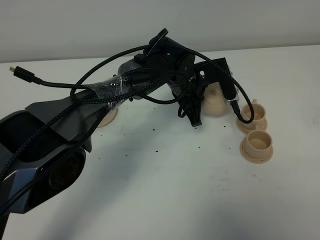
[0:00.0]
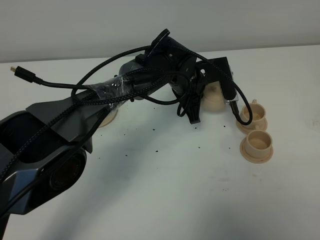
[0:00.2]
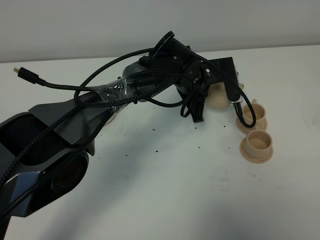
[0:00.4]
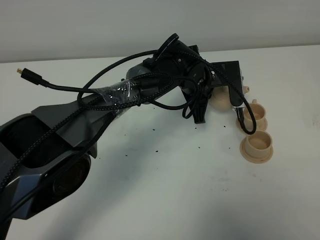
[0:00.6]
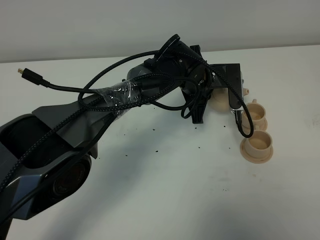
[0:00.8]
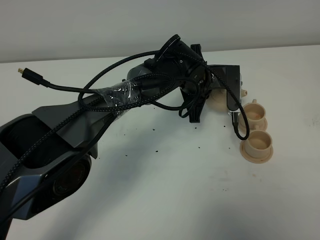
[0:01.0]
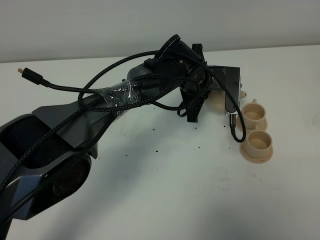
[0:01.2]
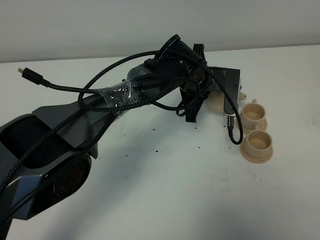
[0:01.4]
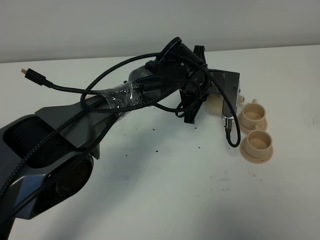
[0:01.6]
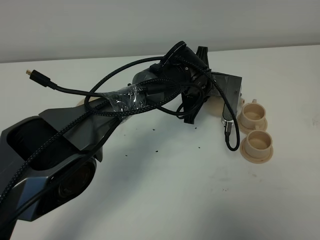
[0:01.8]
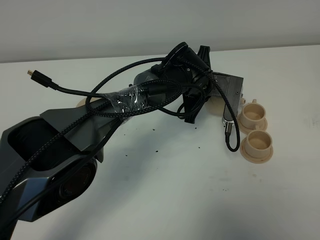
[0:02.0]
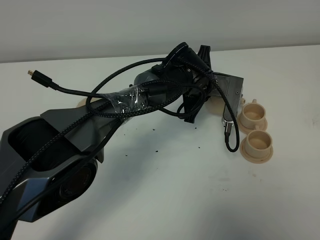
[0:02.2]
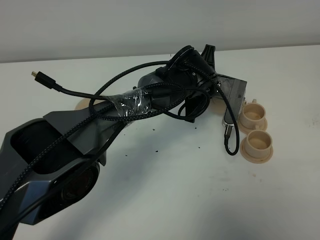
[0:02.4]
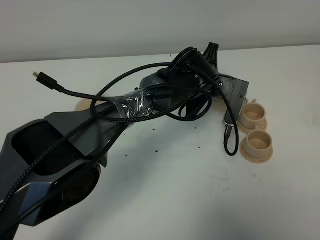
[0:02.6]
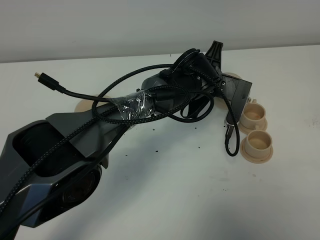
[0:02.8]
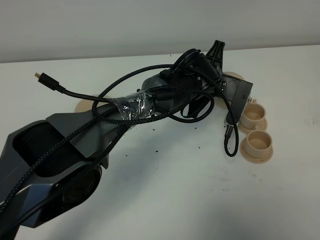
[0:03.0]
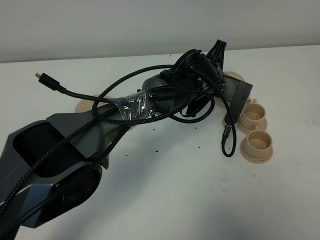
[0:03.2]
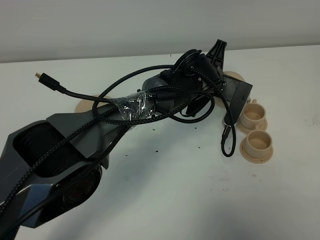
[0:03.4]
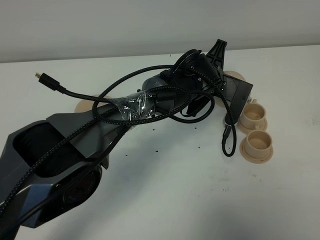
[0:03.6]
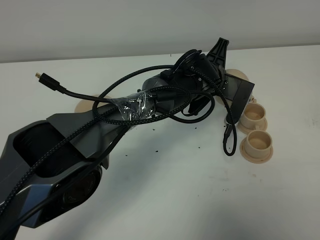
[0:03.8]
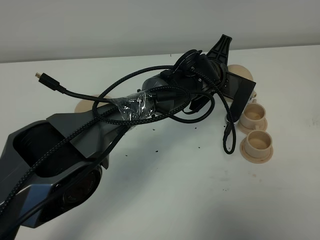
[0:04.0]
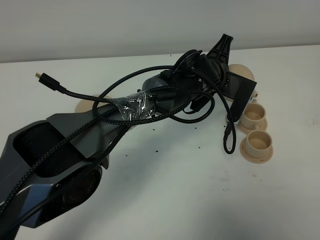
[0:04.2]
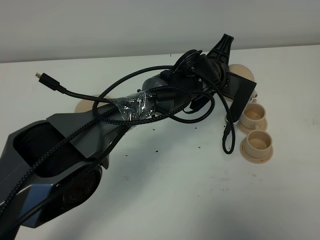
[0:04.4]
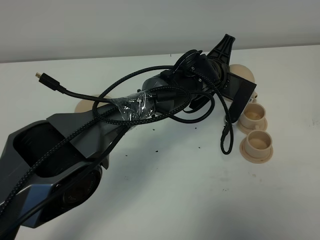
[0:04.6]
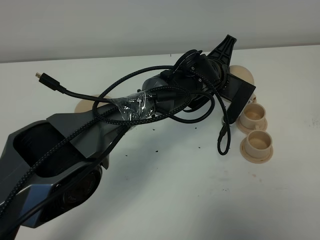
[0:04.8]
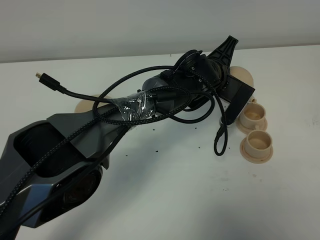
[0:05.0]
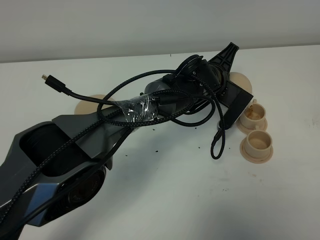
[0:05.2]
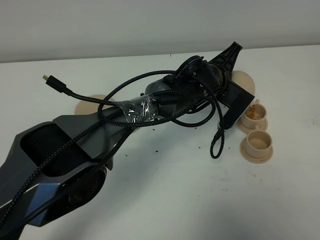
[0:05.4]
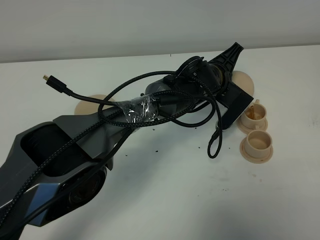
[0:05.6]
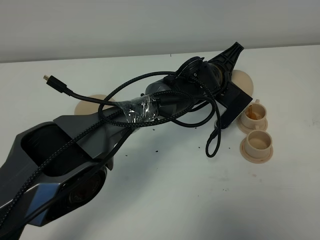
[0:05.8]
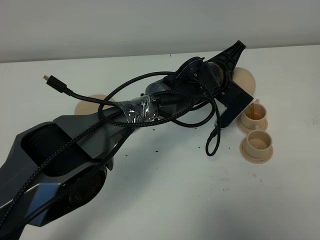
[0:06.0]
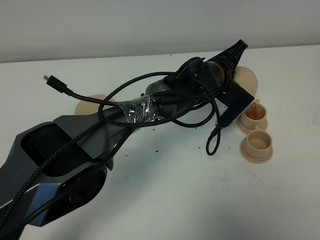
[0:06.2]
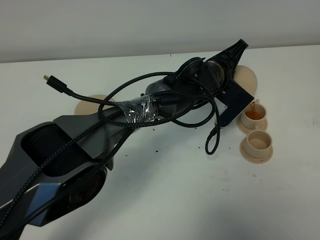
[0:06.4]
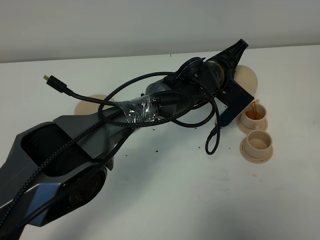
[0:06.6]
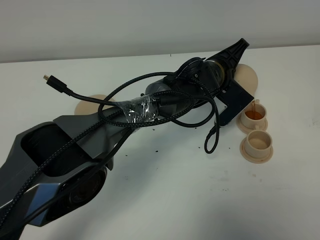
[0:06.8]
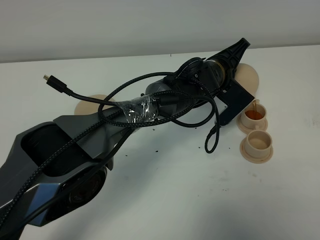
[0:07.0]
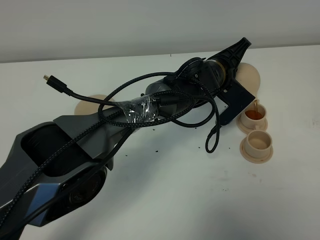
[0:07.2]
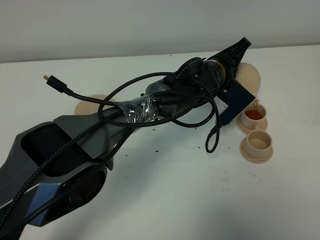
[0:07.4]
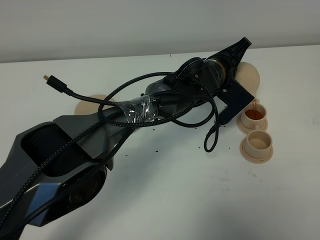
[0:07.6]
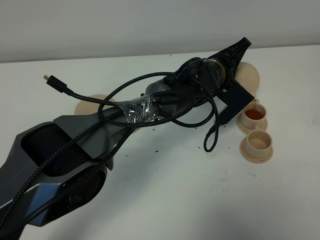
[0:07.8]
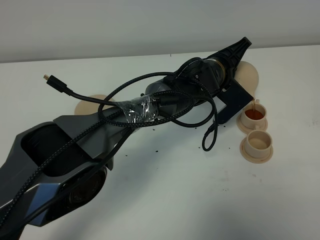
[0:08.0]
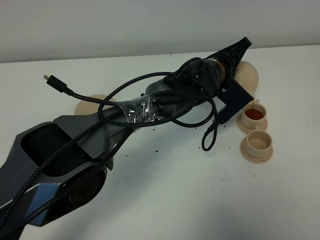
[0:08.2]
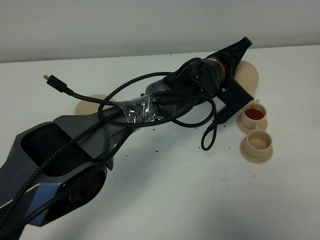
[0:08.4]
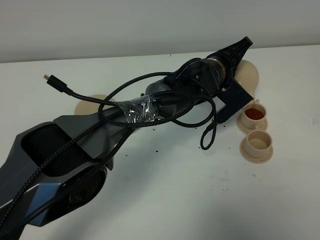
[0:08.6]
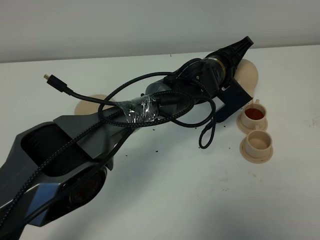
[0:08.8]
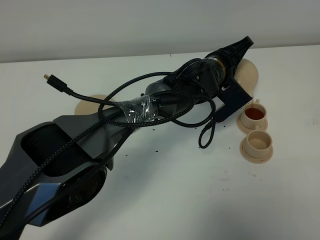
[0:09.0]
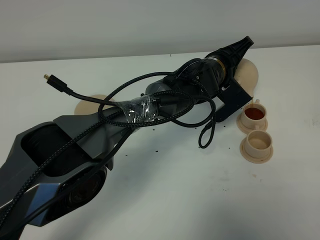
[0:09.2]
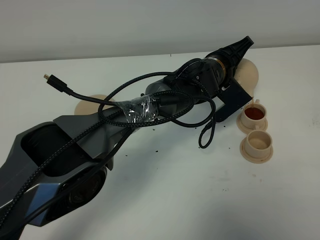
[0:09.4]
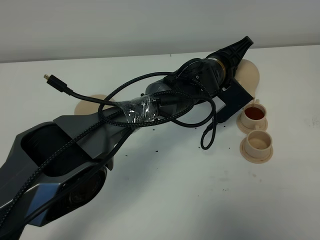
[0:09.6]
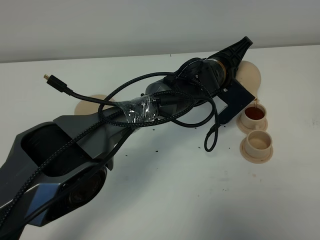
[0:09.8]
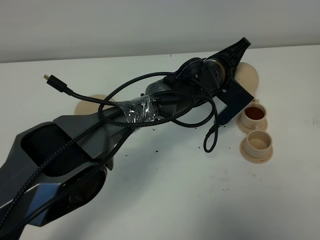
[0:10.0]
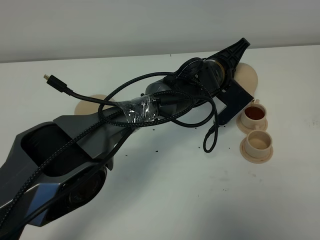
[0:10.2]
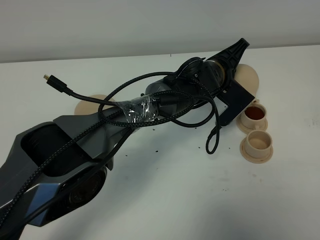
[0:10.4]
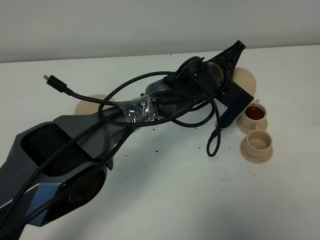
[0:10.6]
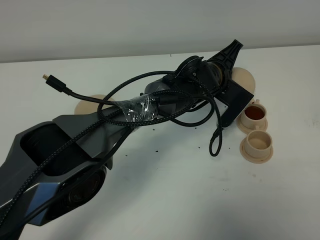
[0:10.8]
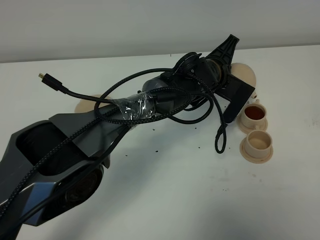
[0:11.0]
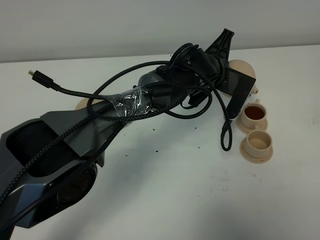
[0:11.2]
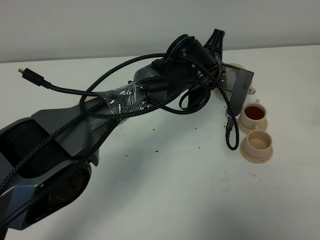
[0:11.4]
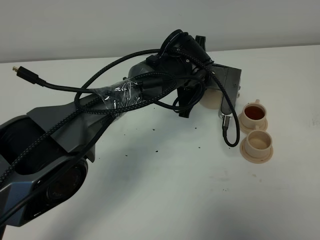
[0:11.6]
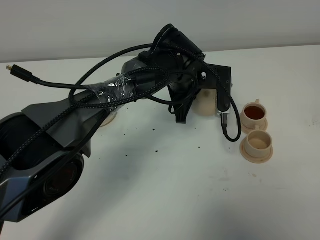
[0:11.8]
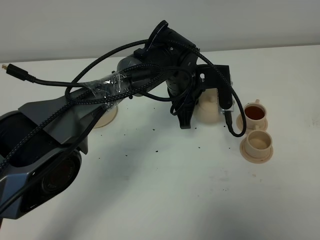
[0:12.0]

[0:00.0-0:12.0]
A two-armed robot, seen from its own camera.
Task of the whole recording: grasp the brown teapot and pour the tea into the two brown teacups one by one, put the brown teapot back in its original place.
0:01.6 to 0:03.0: The grippers make only small movements.
0:03.0 to 0:04.4: The grippers make only small movements.
0:04.4 to 0:06.0: The grippers make only small movements.
0:06.0 to 0:10.4: The grippers move only a little.
0:10.4 to 0:12.0: The left gripper moves to the left, some 5 cm.

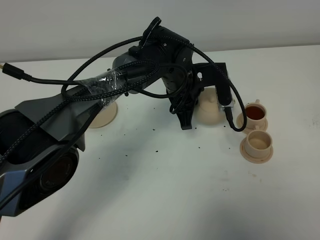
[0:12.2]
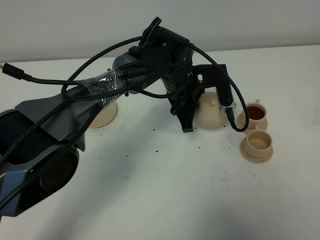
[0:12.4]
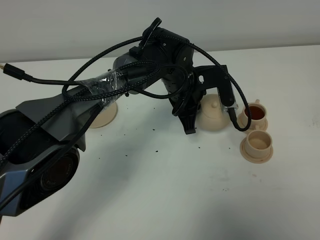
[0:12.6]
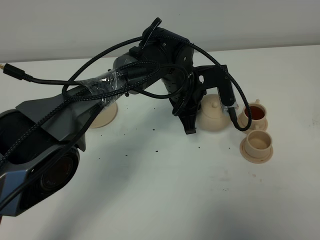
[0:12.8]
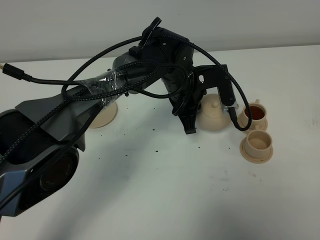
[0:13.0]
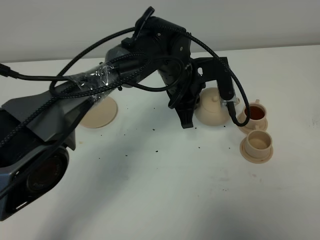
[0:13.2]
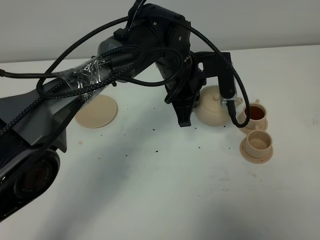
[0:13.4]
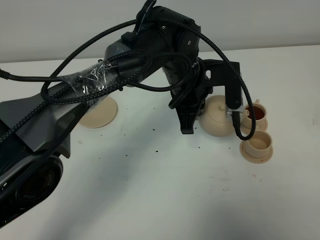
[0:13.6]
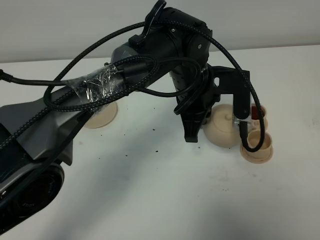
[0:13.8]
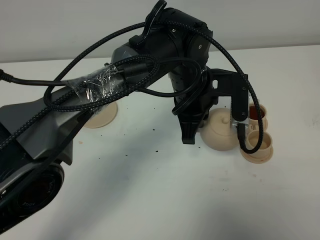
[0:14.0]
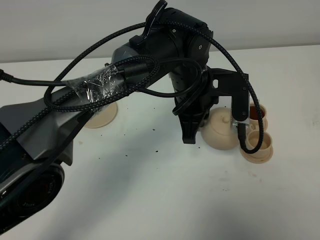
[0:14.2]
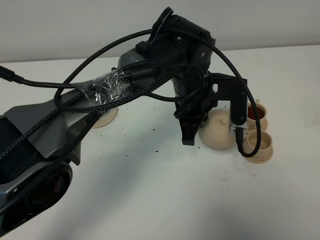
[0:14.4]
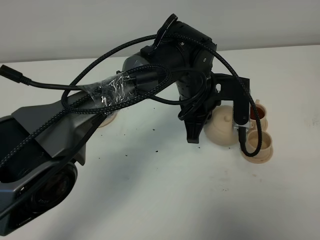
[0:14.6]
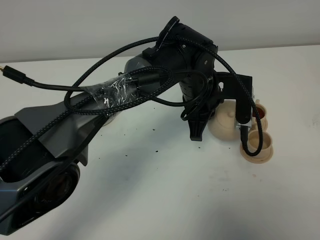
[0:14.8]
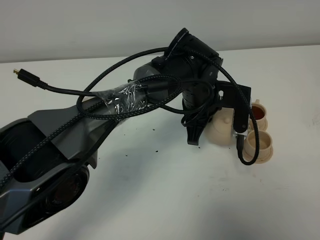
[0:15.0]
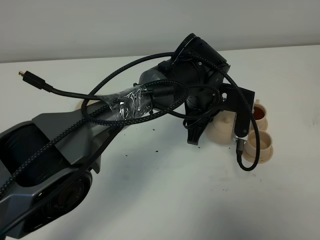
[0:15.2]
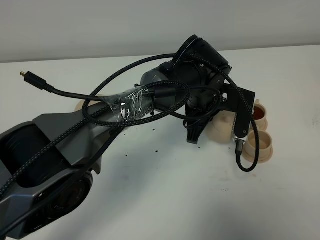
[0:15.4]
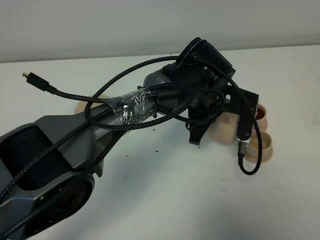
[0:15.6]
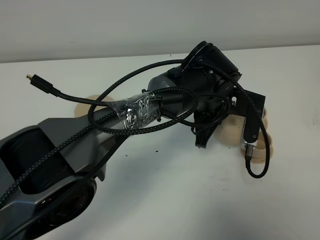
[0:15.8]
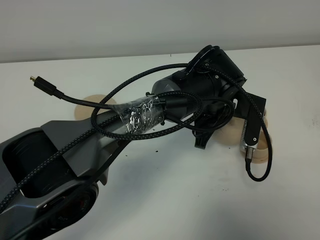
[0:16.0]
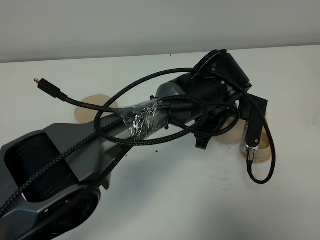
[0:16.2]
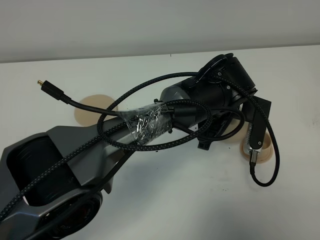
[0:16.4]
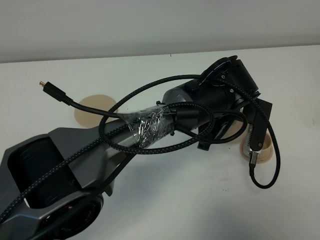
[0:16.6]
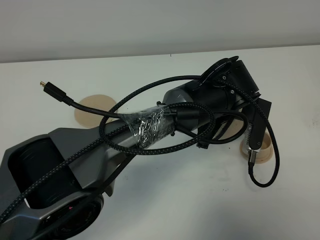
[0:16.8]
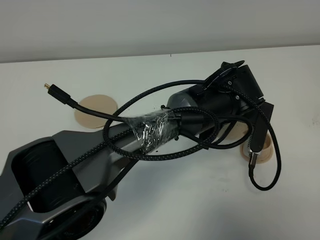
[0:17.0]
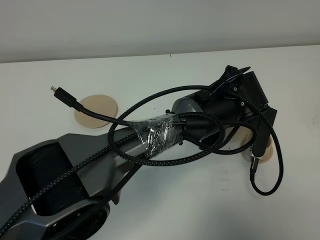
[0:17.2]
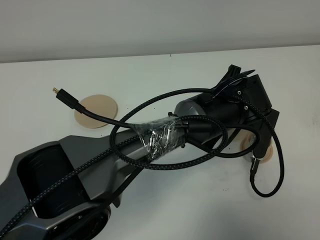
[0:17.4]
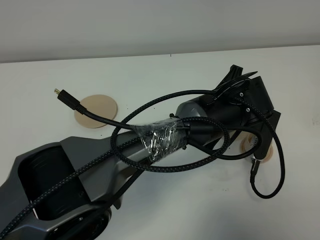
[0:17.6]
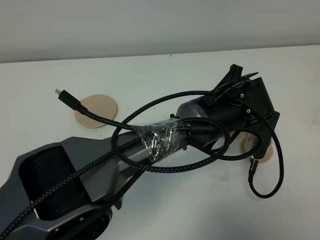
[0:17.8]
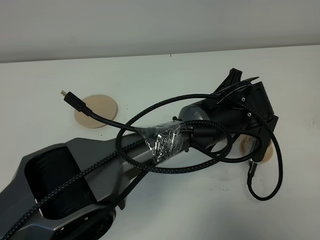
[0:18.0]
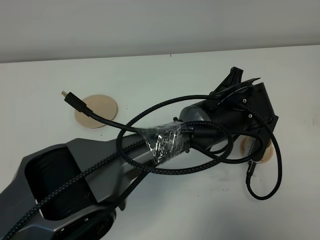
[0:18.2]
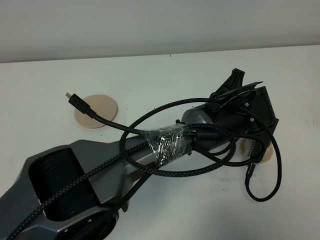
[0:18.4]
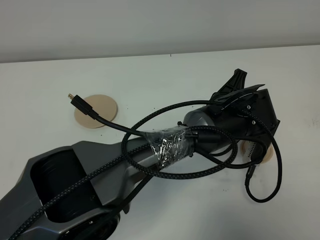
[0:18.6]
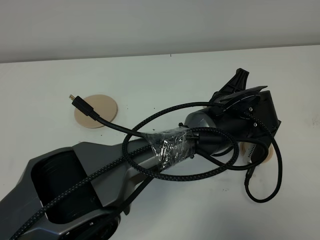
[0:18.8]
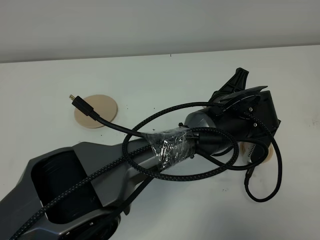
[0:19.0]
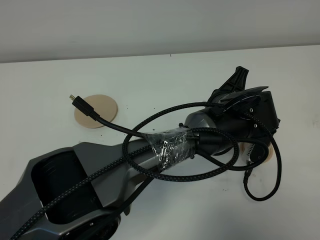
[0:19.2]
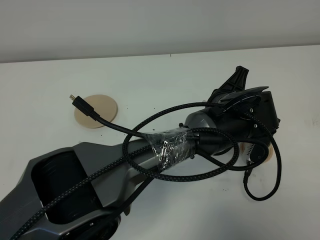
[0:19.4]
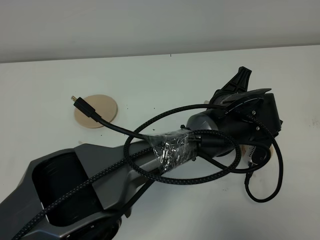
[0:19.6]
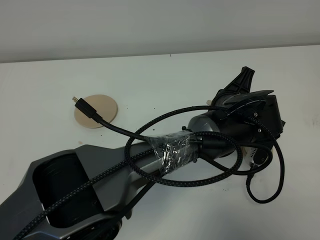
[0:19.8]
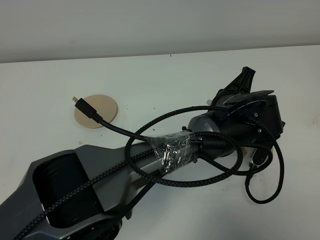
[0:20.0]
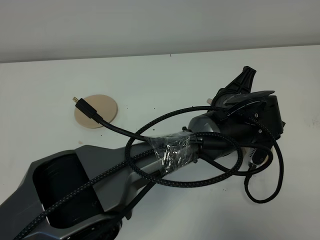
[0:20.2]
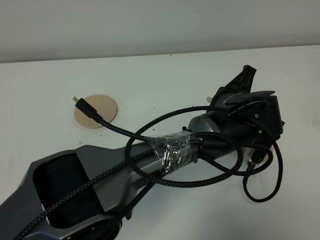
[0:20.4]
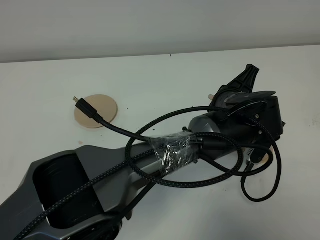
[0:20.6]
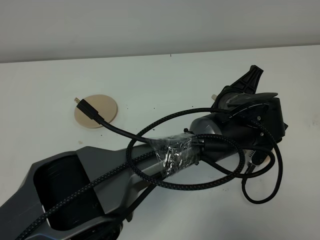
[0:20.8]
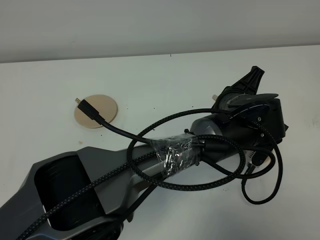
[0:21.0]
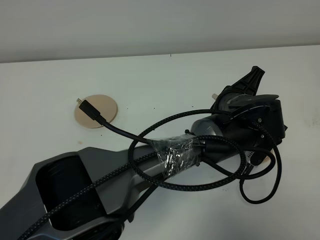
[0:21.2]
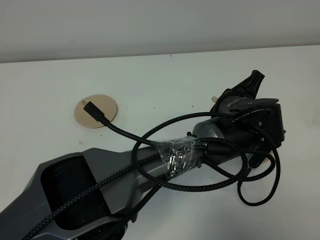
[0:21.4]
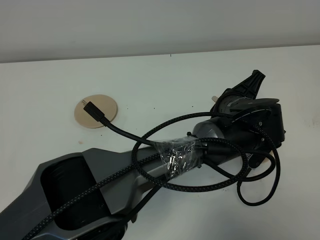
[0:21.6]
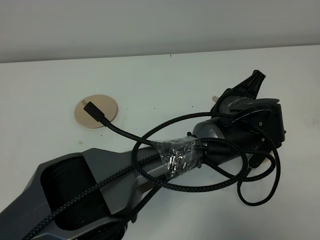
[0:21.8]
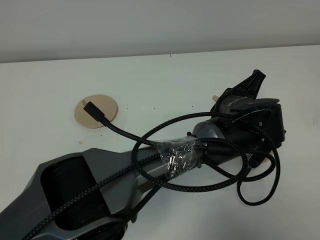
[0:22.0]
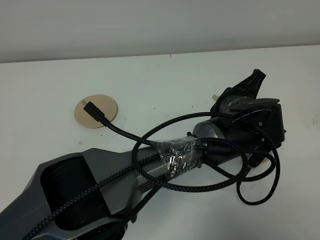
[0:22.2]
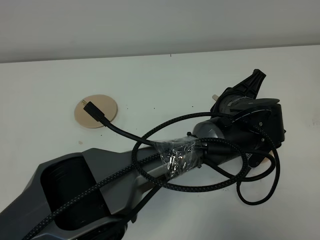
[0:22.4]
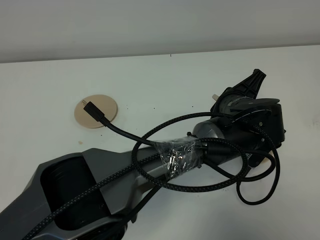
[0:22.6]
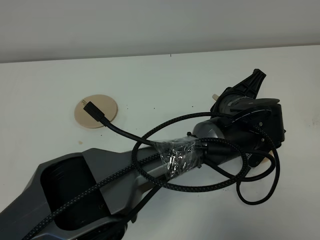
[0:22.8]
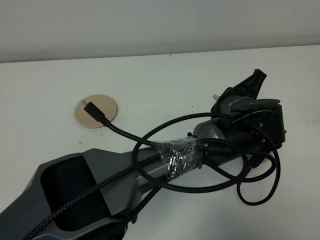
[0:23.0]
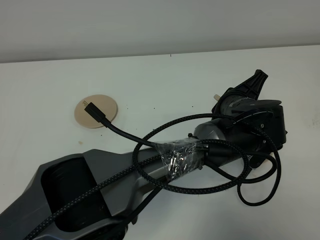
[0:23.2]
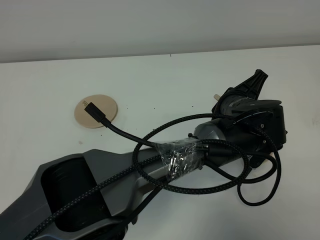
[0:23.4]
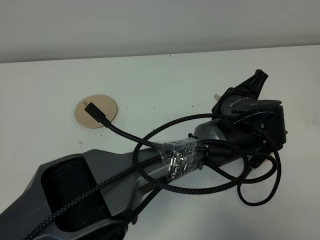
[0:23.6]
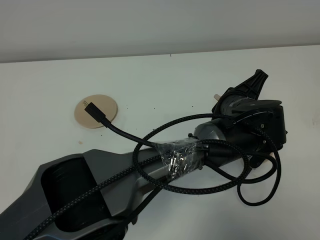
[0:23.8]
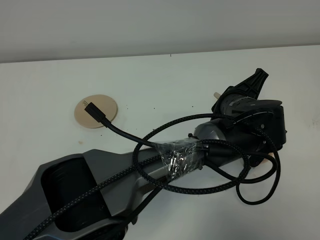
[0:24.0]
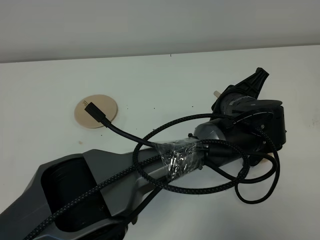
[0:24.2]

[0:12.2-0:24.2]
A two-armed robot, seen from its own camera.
Task of the whole recording: grasp the brown teapot and pour the tea into the two brown teacups one by one, put the brown teapot back in its original place.
0:12.2 to 0:13.8: The left gripper moves backward and upward, some 10 cm.
0:13.8 to 0:15.2: The left gripper moves roughly 5 cm.
0:18.2 to 0:21.2: The grippers make only small movements.
0:21.2 to 0:24.2: Both grippers stay put.
